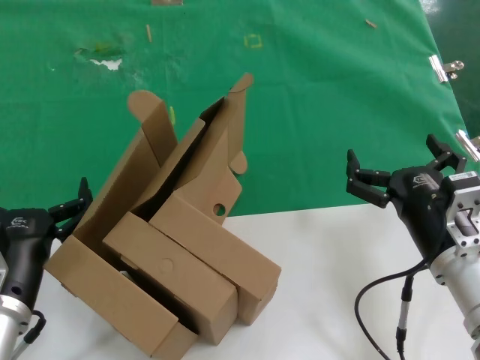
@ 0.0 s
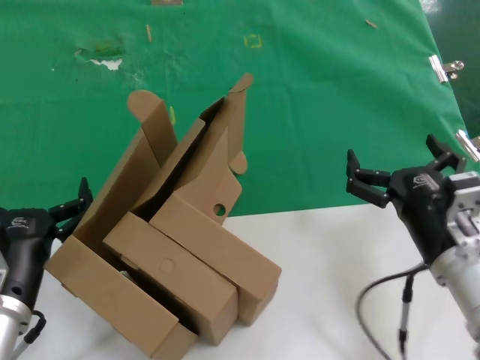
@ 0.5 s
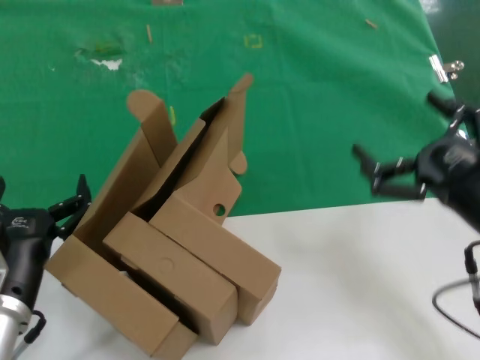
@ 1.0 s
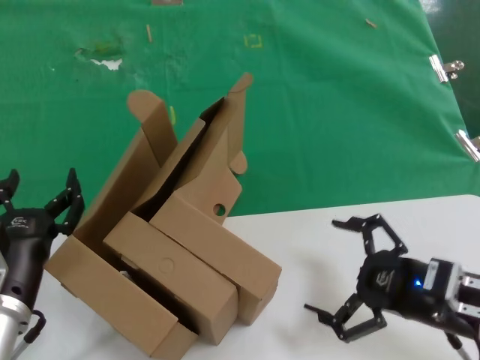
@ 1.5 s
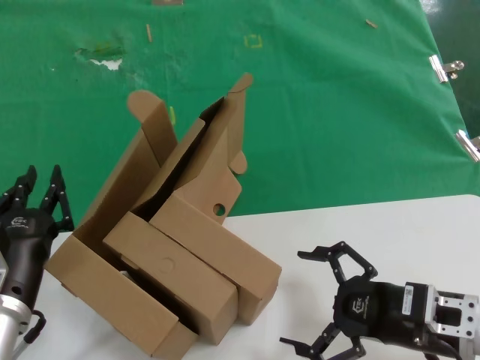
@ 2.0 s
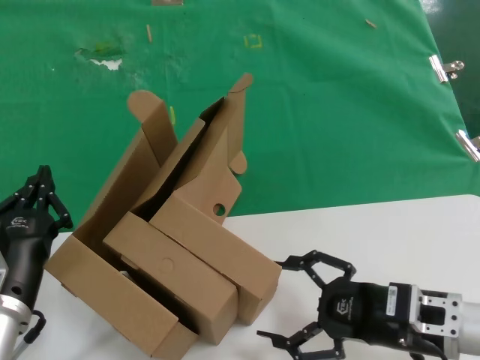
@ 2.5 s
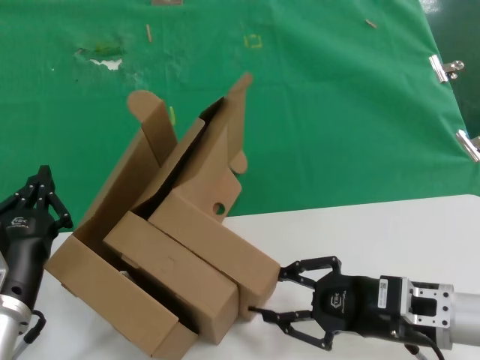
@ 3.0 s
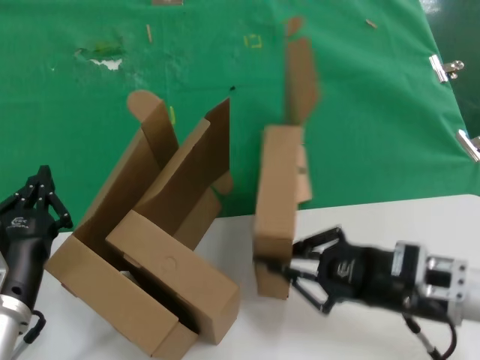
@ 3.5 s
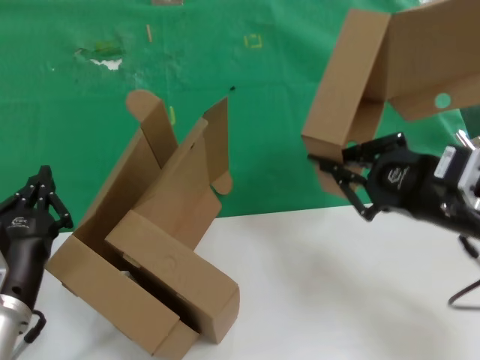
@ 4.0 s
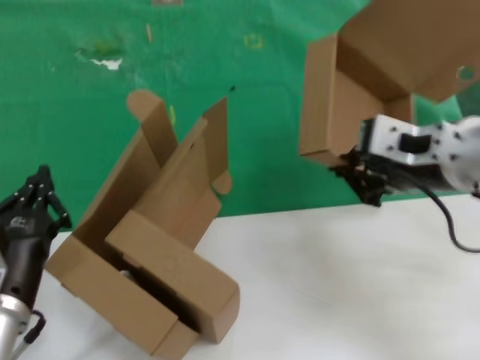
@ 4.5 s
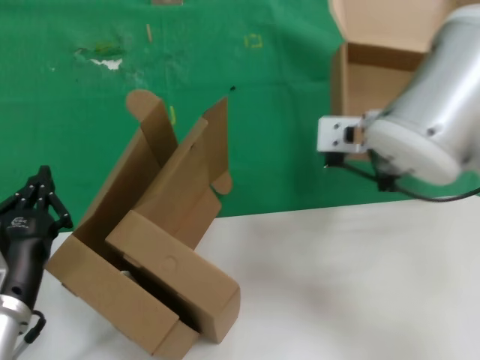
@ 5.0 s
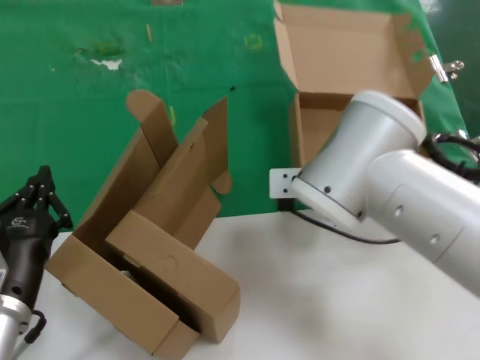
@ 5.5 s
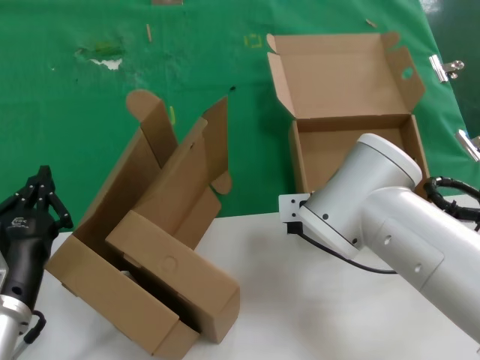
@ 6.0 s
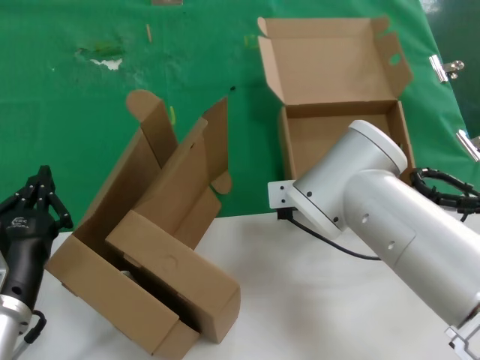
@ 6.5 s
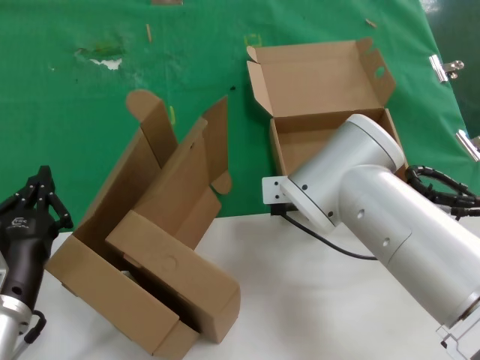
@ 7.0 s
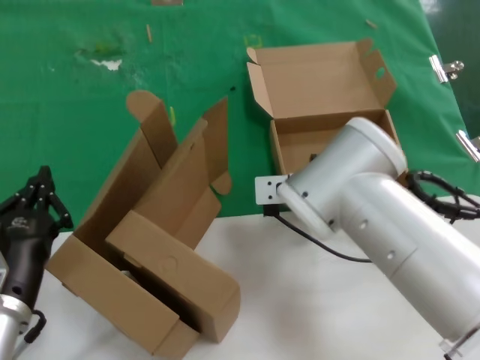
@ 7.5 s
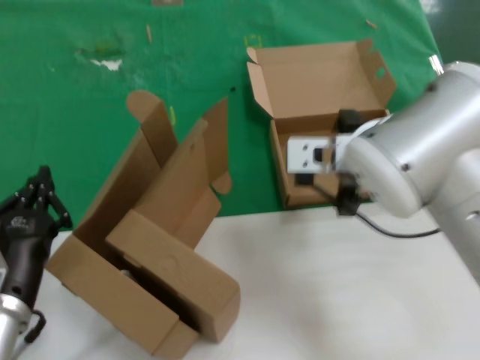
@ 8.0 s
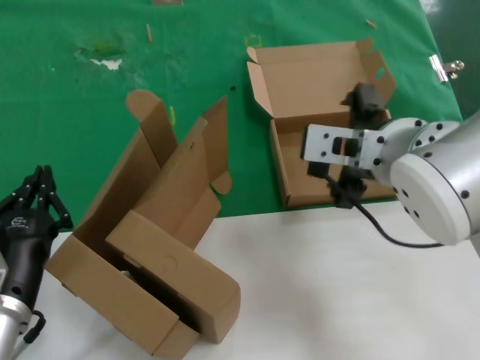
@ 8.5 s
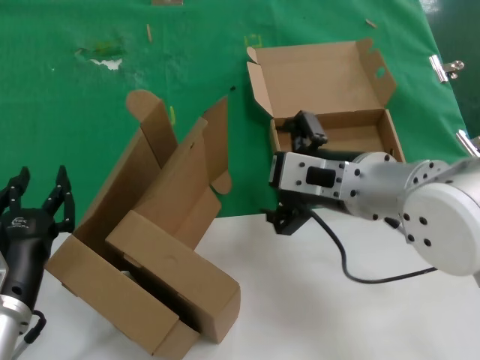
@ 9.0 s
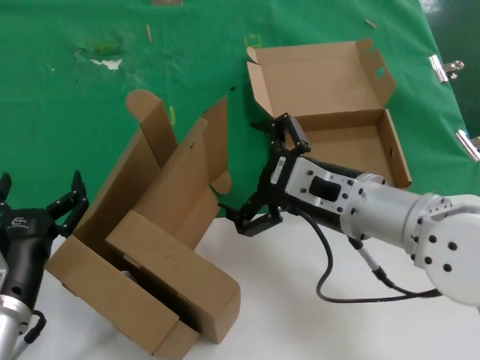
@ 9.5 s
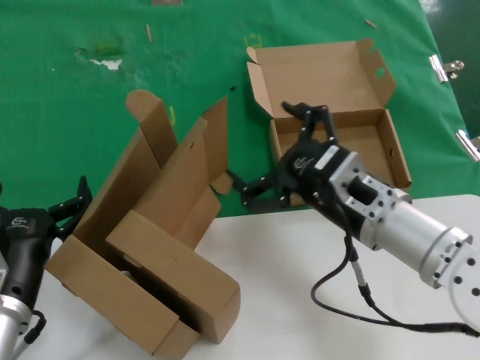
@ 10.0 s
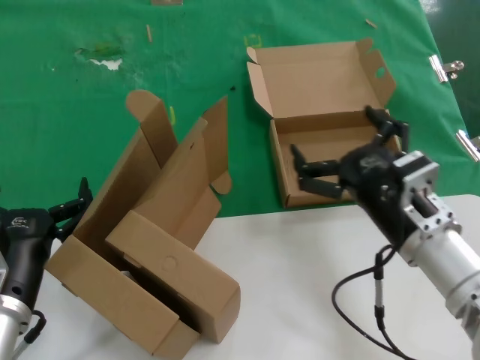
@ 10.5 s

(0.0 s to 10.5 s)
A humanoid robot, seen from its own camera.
Task of the whole recording: pick up the paper box and put it at the back.
Step, 0.0 s - 3.0 s: Grasp the paper box.
Step, 4.0 s - 7.0 s: Place the paper box on the table.
0.0 s - 2.0 s: The right hand reaches about 5 cm upward, then returns.
2.0 s - 4.0 s: The right hand is displaced upward by about 15 cm.
4.0 s - 6.5 s: The right hand shifts about 25 cm to the left and forward.
6.5 s - 8.5 s: The right hand heads upward and backward, covering approximately 15 cm.
8.5 s - 10.5 s: The right hand heads downward and to the right, covering about 15 cm.

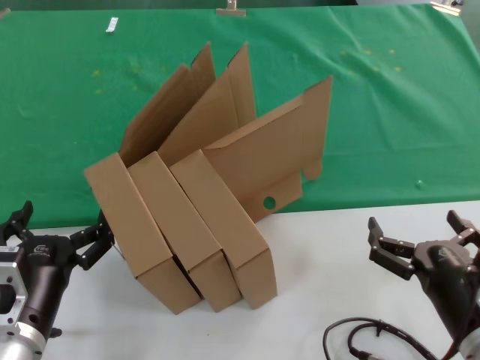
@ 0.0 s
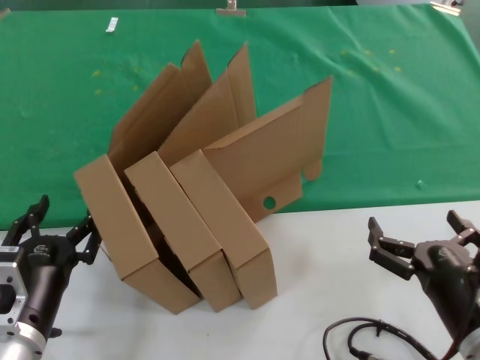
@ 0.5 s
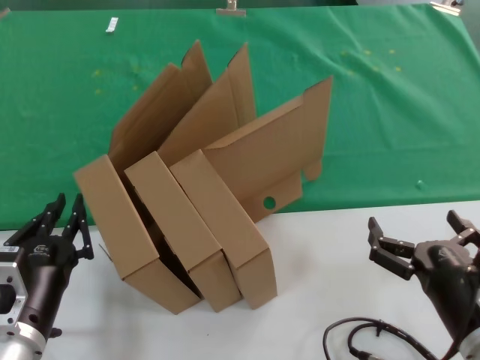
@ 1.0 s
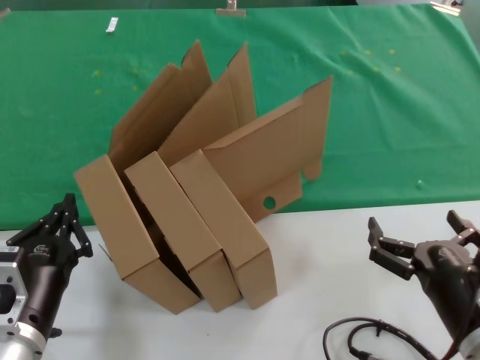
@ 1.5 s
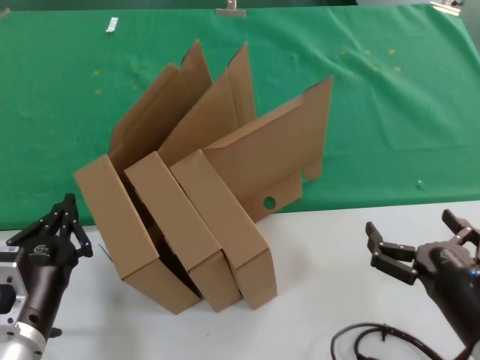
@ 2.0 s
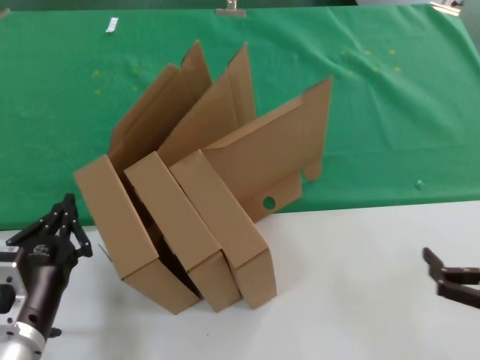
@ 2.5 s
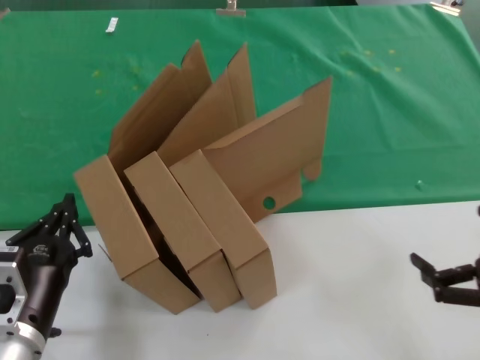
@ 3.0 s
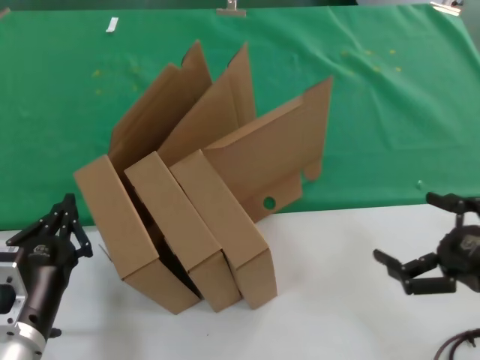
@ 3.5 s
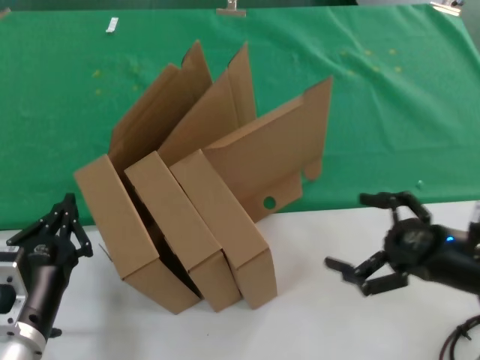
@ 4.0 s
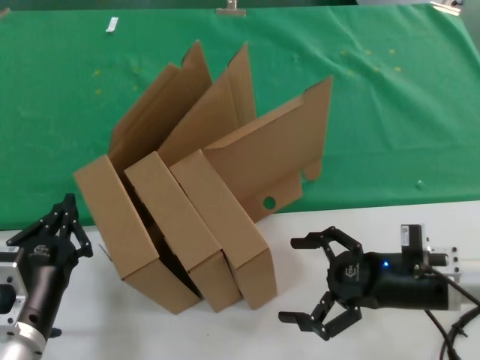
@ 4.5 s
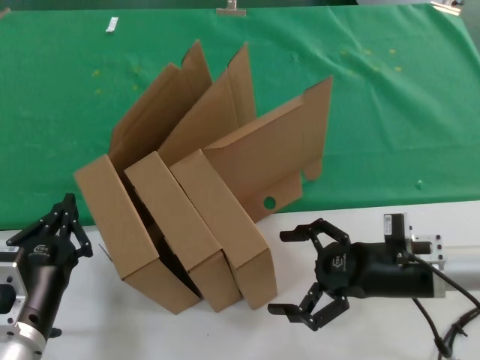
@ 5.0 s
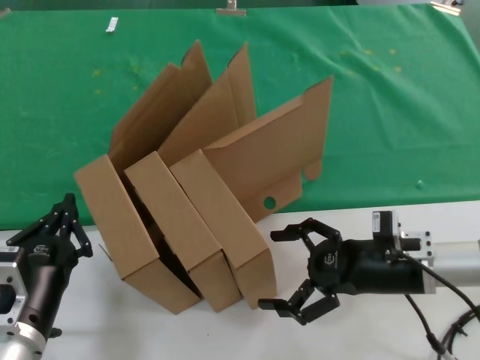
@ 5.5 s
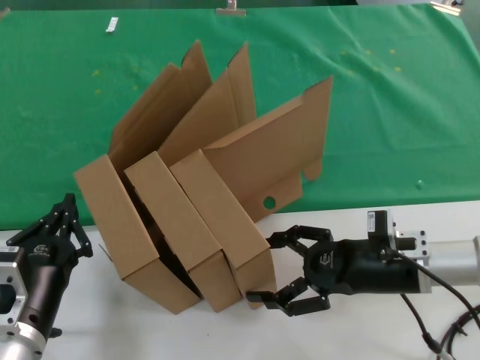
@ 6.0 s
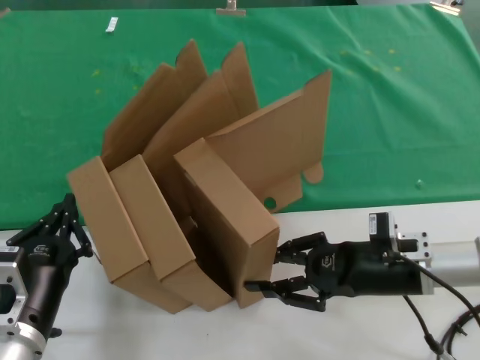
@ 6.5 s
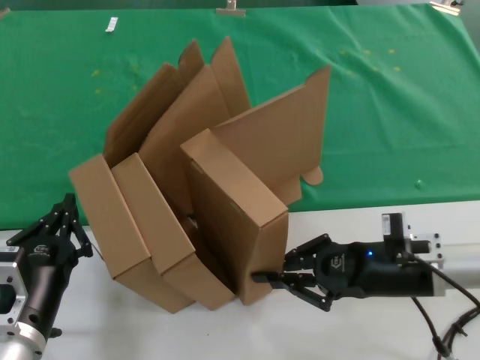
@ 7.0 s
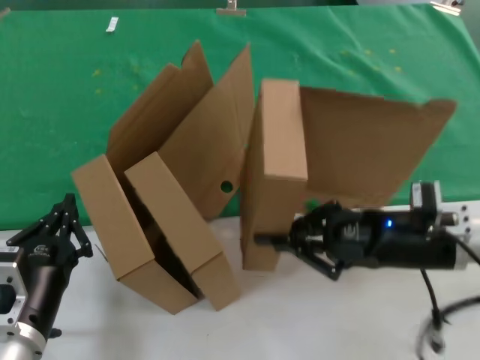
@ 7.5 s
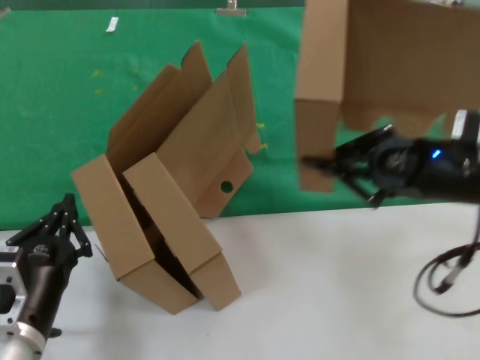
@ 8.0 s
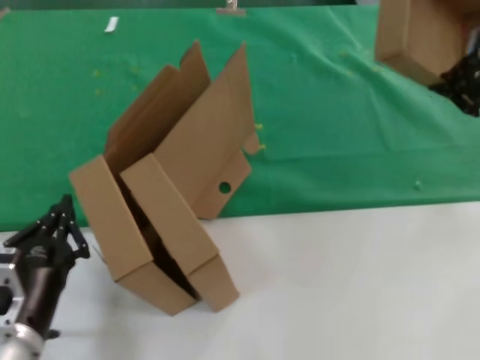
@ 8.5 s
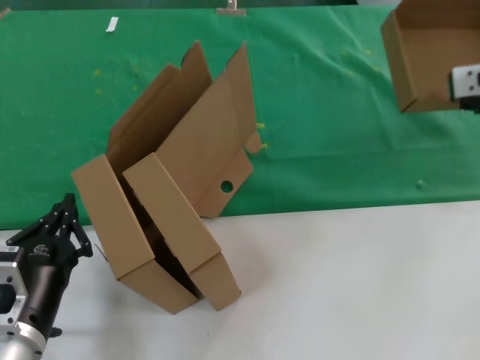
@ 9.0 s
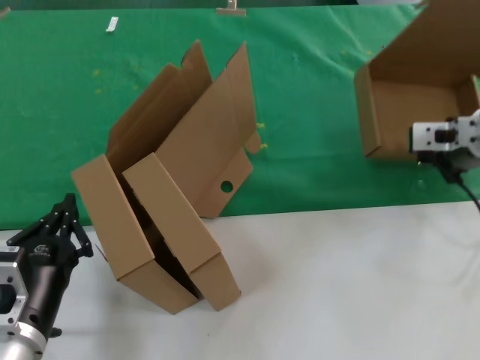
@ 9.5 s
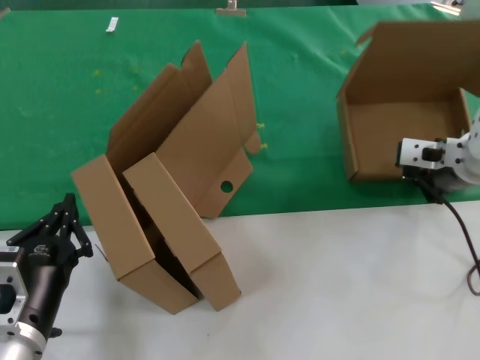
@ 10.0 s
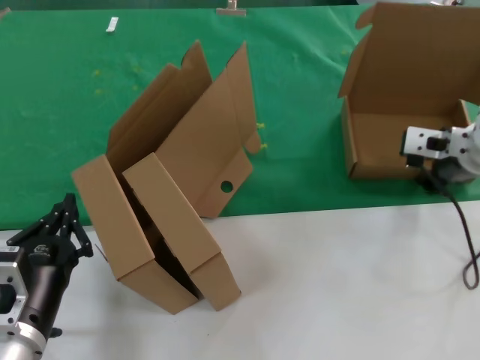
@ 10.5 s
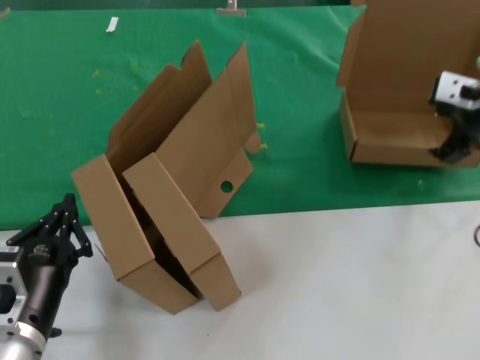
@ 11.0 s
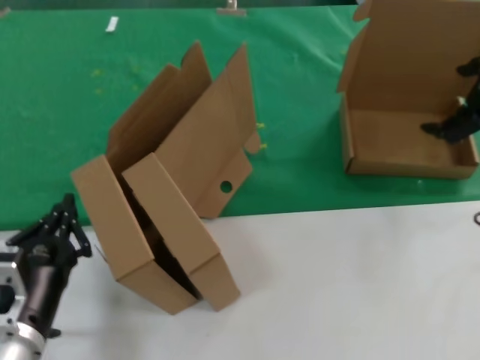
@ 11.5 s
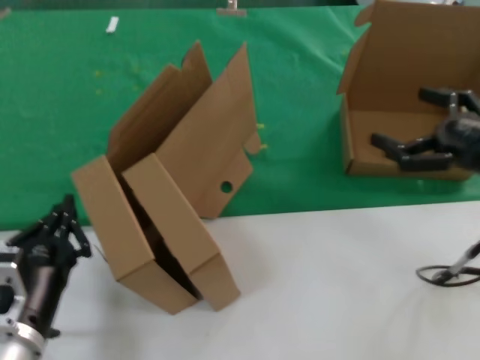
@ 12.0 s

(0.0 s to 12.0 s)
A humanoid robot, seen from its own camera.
Task of the whole recording: pick up the paper box and put it at the back.
Step, 0.0 s - 7.0 s: Grasp the paper box.
Step, 7.5 s - 11.0 s: Place the paper box on the table.
0.0 s - 2.0 s: The hands stay close to where they were, moving slightly.
2.0 s - 4.0 s: The right hand goes some 15 cm forward, to the right and upward.
4.0 s - 6.0 s: The right hand moves to the left and forward, approximately 10 cm.
6.0 s - 8.0 s: The right hand shifts some 15 cm upward.
8.0 s - 10.0 s: The right hand moves forward, some 10 cm, and travels upward and back again, approximately 10 cm each way.
10.0 s - 12.0 s: The right hand heads to the right and backward, covering approximately 15 cm, and goes upward and returns, roughly 10 cm each way.

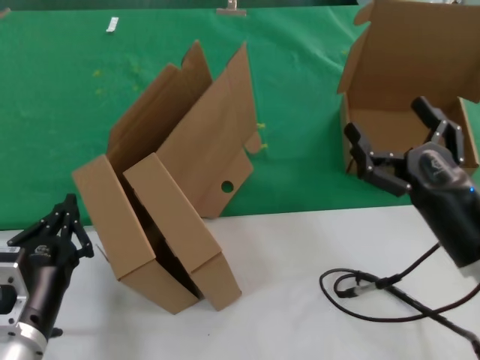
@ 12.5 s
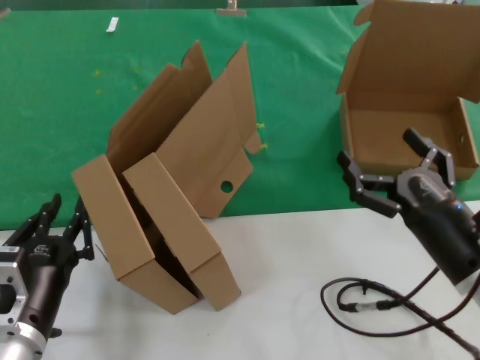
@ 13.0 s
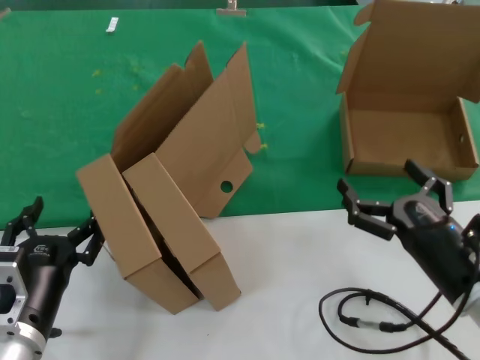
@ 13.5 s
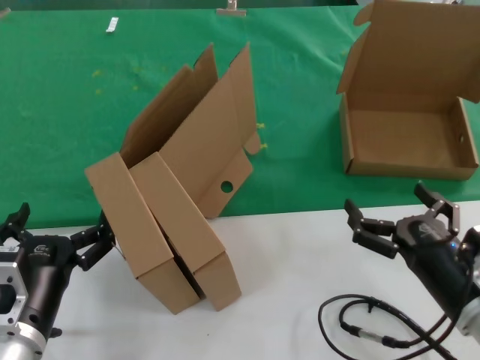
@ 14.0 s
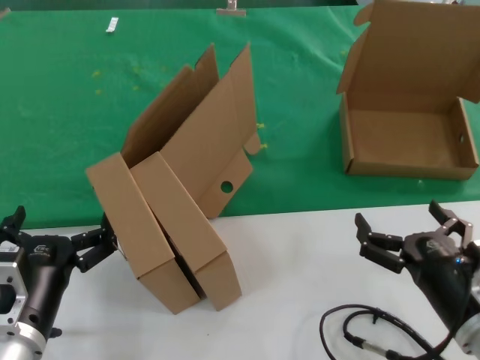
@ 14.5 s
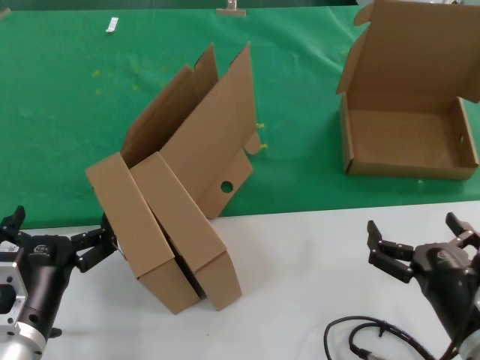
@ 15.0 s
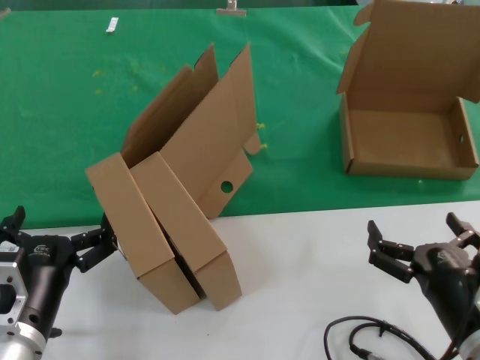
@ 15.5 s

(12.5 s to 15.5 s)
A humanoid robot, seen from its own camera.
Task of the whole recording: pick up the paper box and put it at the back.
12.5 s - 14.0 s: The right hand is displaced backward by about 5 cm.
14.0 s - 15.5 s: The right hand ends up some 5 cm from where it was.
